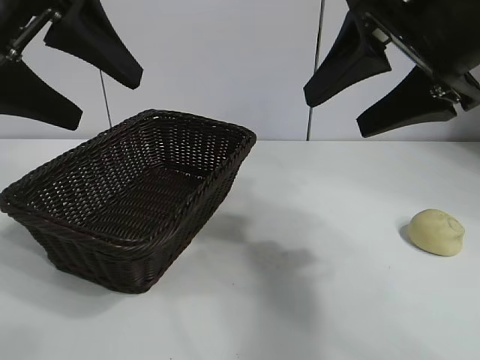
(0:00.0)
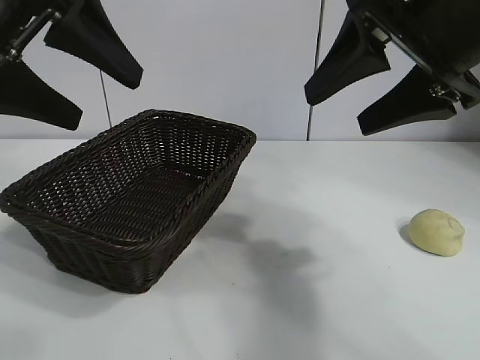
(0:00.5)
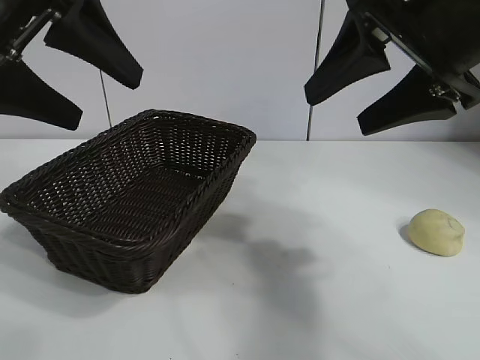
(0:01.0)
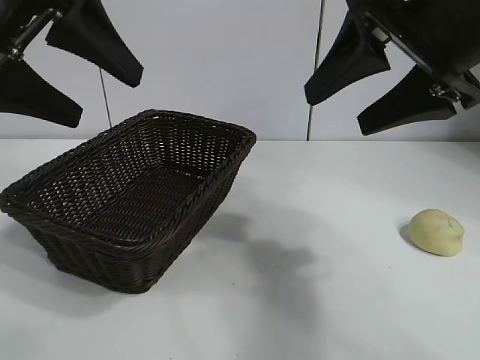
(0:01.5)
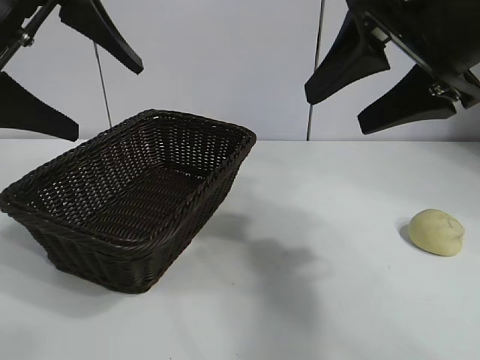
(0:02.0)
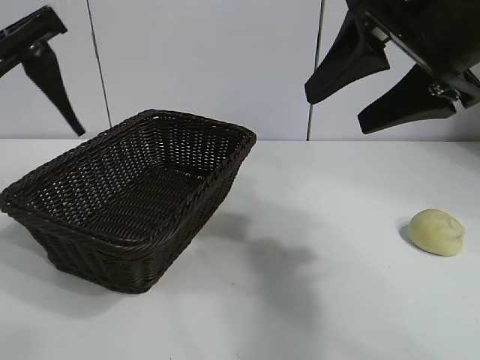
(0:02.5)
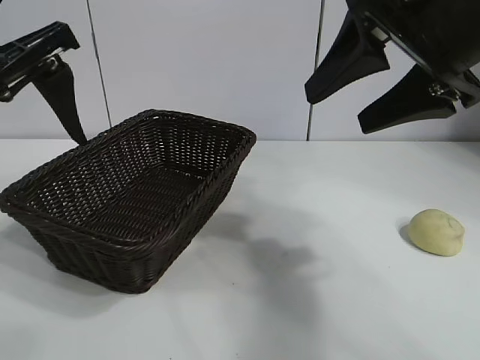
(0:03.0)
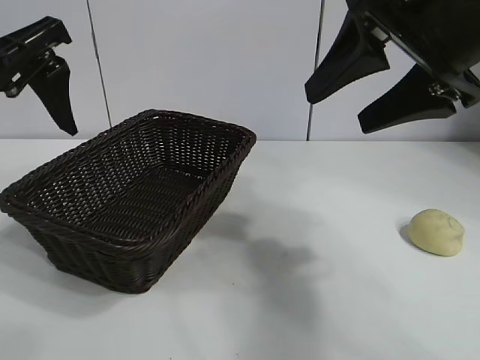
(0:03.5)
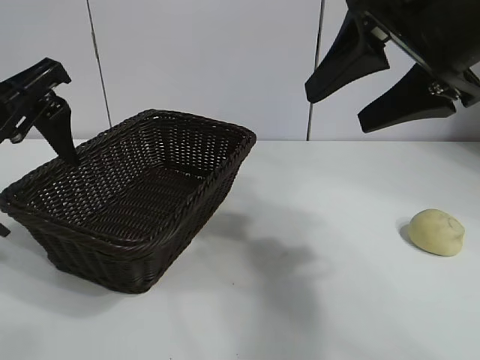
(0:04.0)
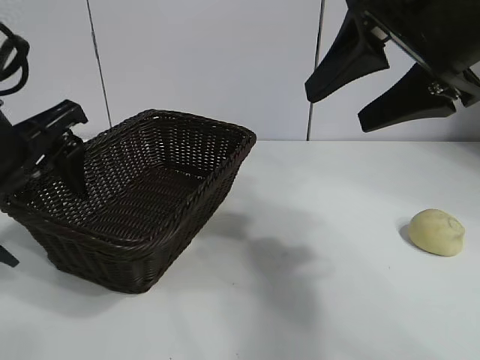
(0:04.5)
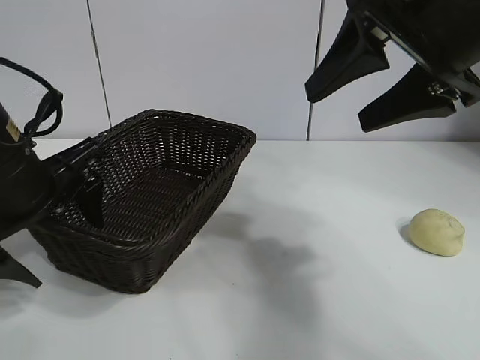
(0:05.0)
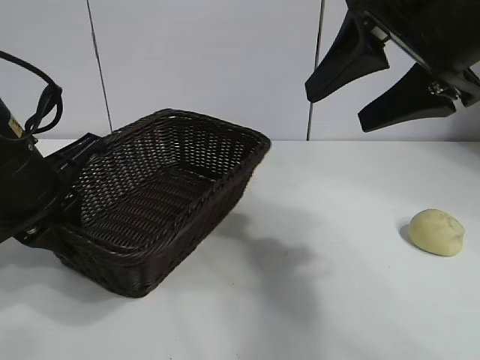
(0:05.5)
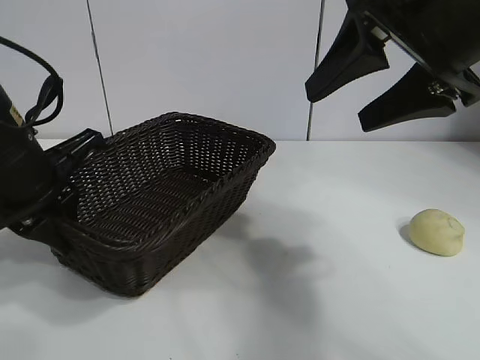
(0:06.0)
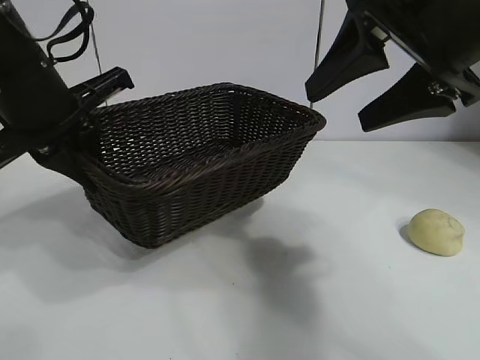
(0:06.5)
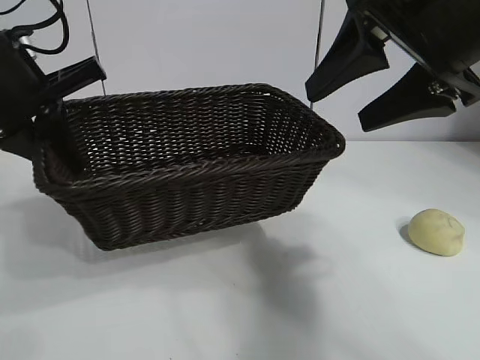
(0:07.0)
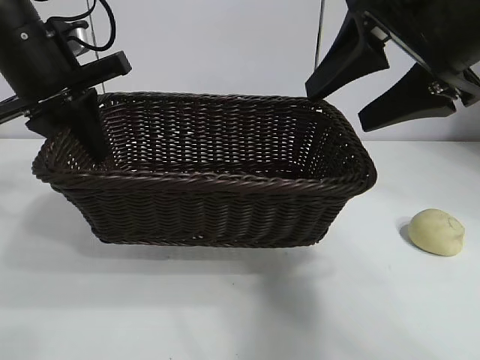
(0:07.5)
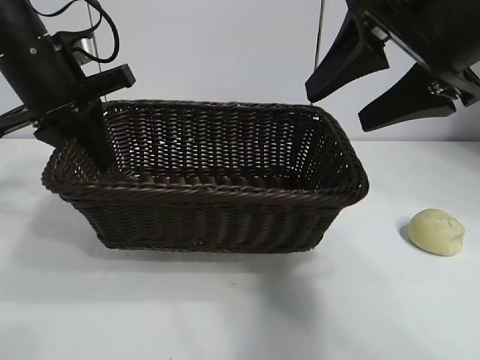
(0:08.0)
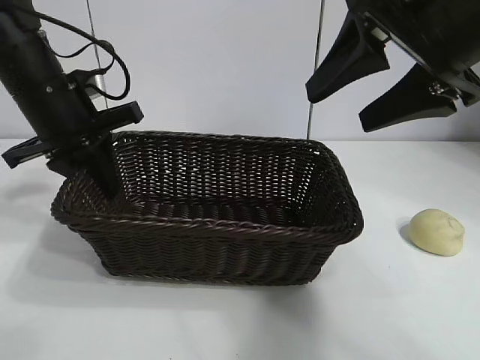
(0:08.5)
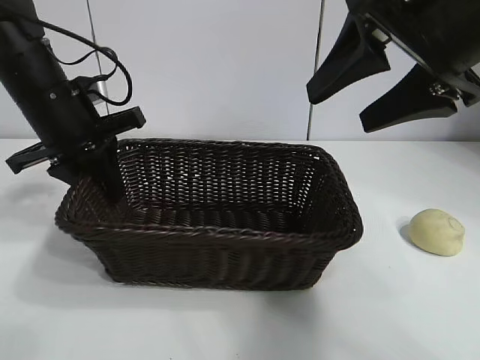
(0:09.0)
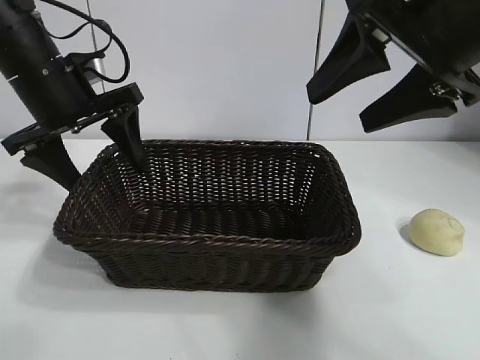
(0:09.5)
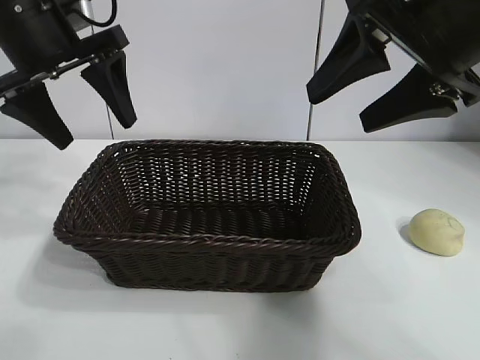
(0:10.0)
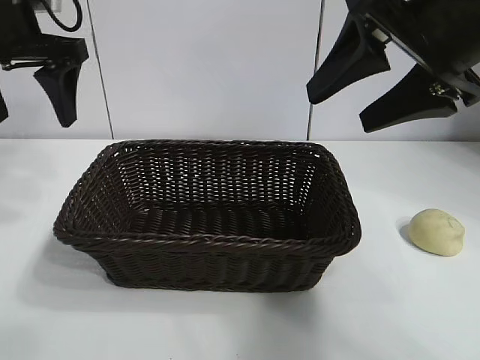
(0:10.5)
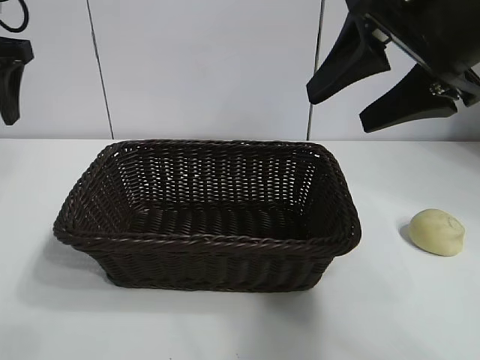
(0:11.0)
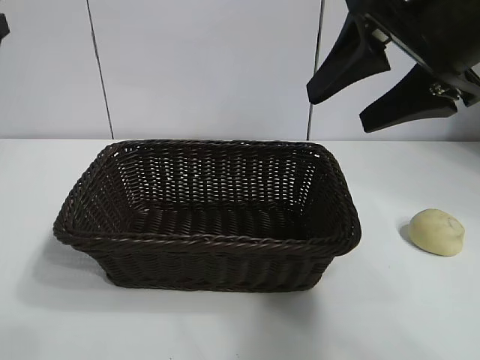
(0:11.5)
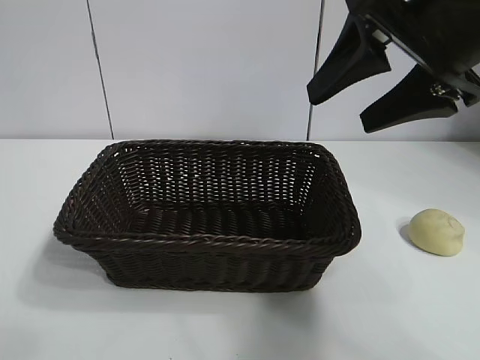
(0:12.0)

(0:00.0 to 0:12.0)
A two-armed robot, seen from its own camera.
Task of the whole recording: pick up the egg yolk pastry and put it into the basket.
Step, 0:01.5 - 0:05.5: Grasp the basket with left gripper.
Step, 0:06.0 - 0:09.0: Place the basket in the center of view with left gripper.

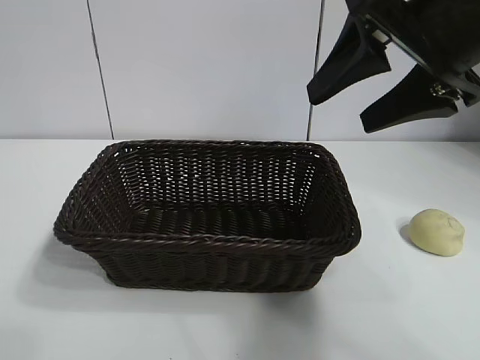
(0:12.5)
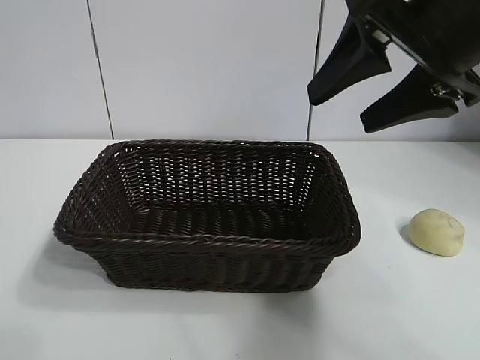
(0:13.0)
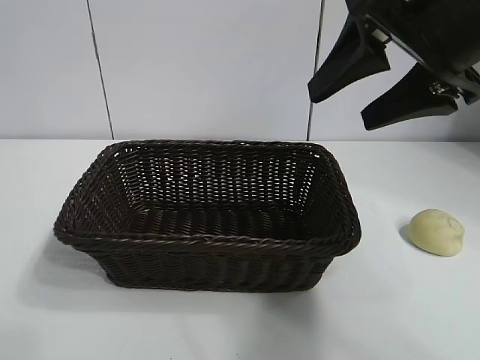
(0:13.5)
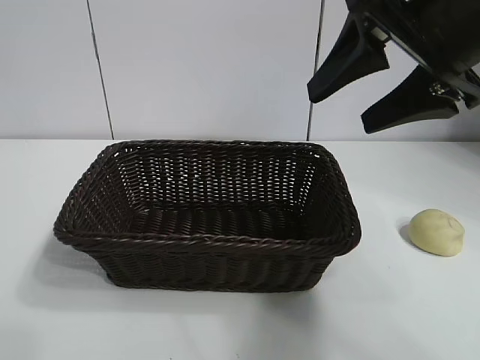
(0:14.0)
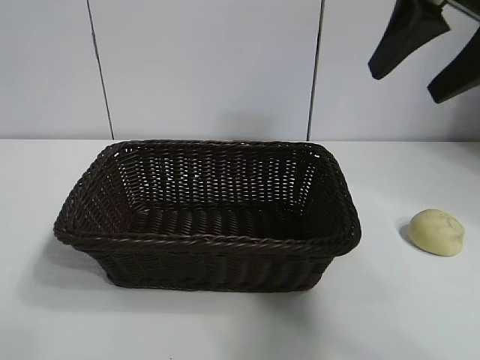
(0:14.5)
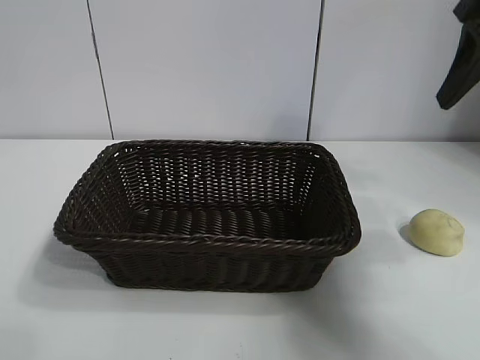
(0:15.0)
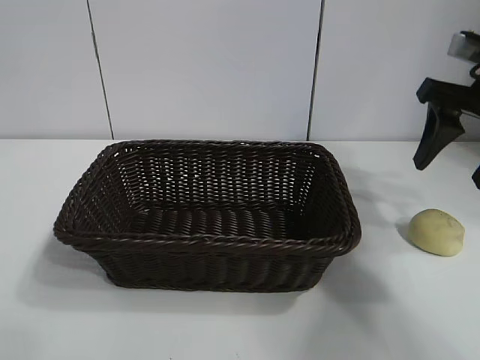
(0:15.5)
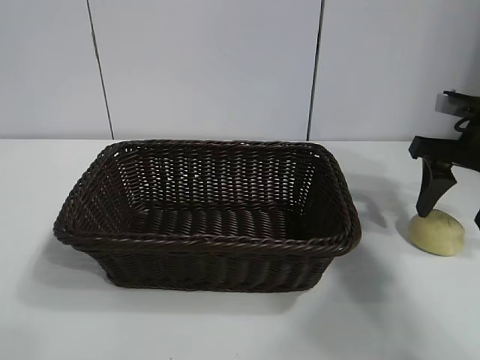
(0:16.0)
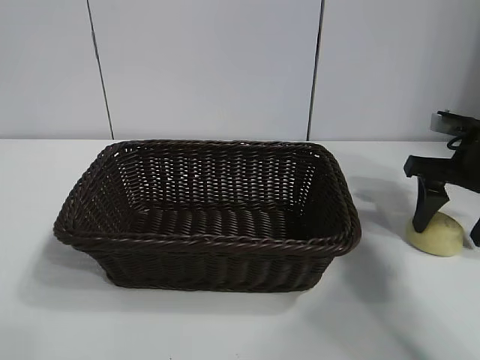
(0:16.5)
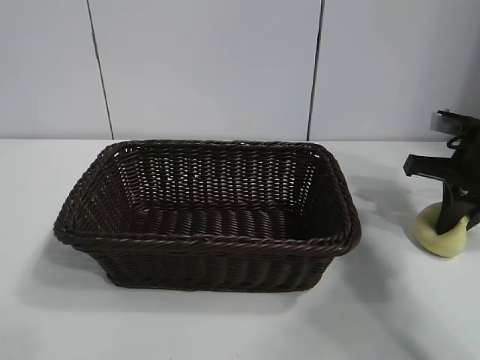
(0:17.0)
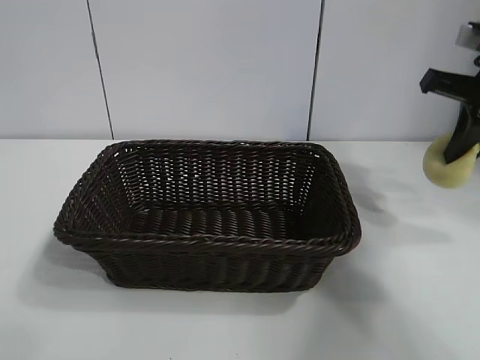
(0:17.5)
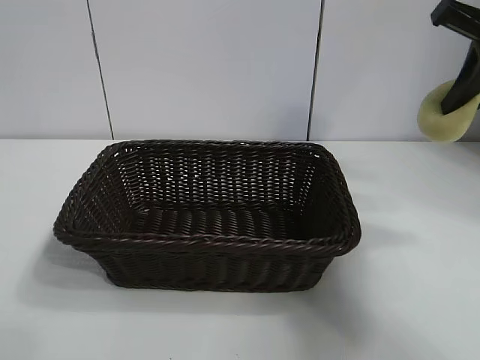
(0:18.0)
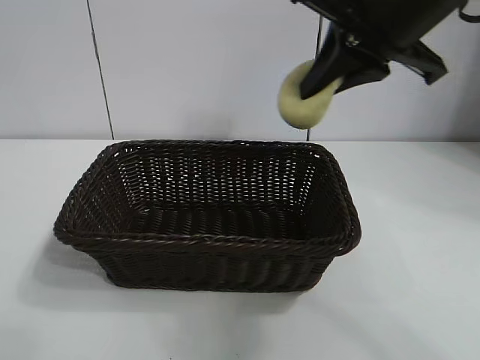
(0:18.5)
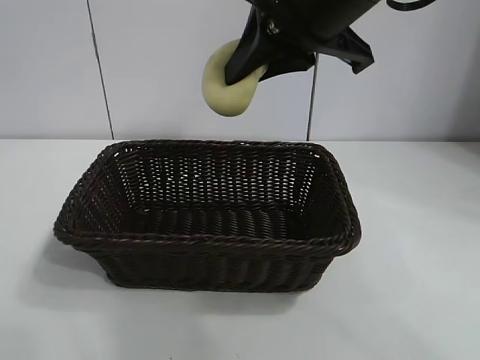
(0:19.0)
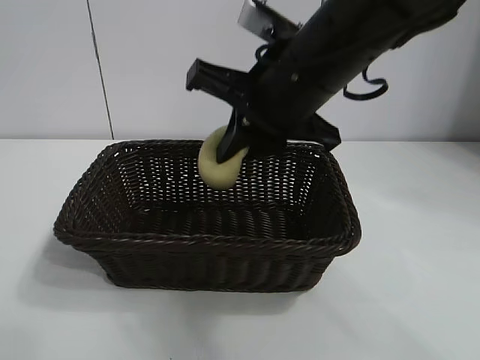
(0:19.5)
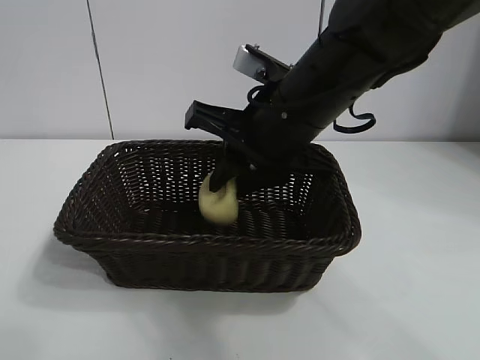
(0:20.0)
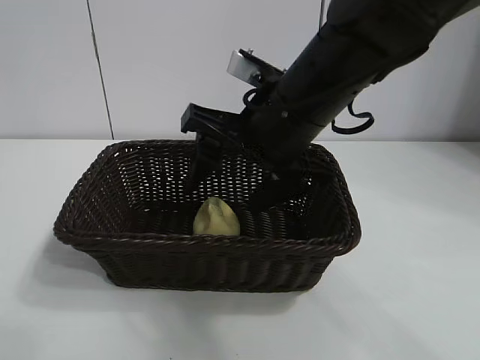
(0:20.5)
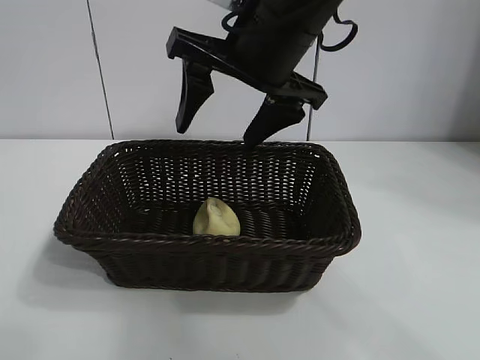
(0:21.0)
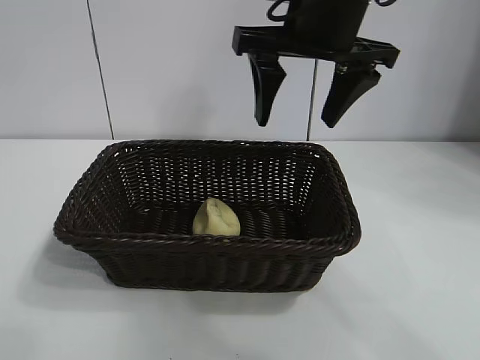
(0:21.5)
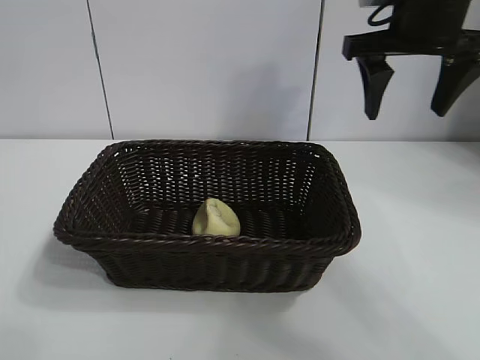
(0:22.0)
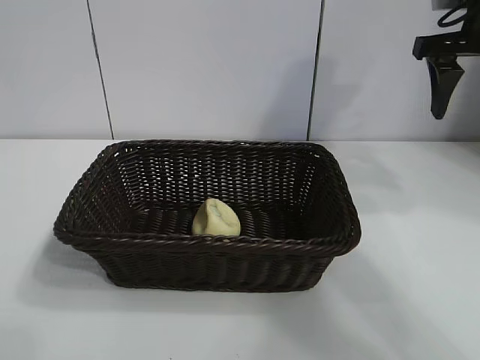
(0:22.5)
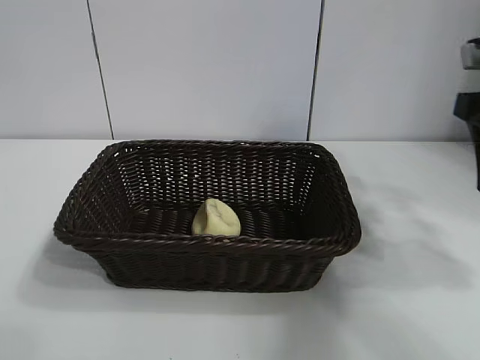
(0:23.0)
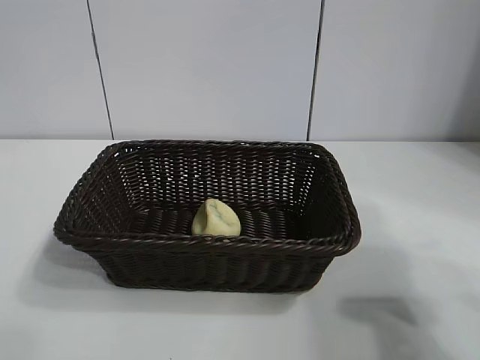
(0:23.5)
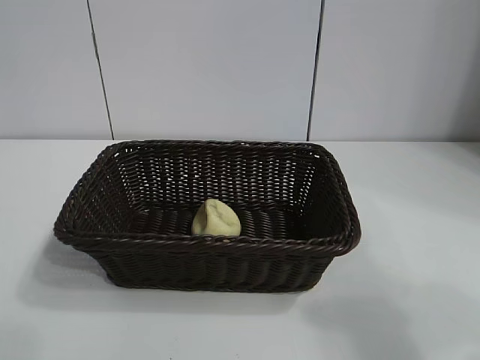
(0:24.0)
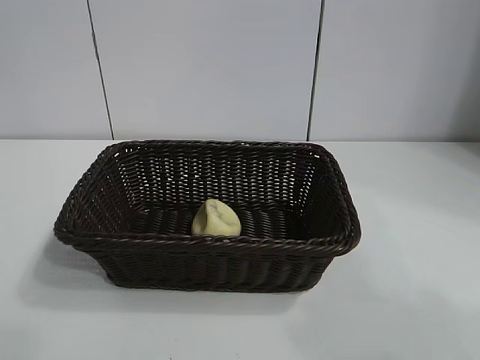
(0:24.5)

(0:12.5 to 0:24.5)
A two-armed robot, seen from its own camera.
Task of the whole recording: pick up the egg yolk pastry and put it into the basket.
Step, 0:12.5 - 0:16.5: Grasp egg yolk pastry with right gripper.
Step, 0:17.5 - 0:20.5: Place the egg yolk pastry in the basket with right gripper.

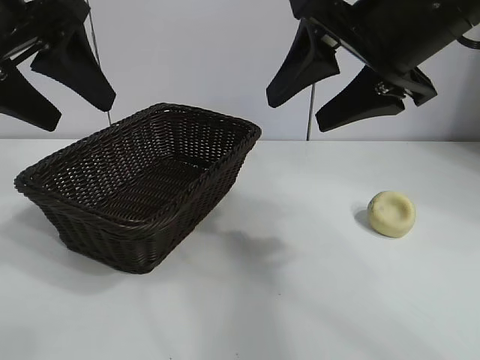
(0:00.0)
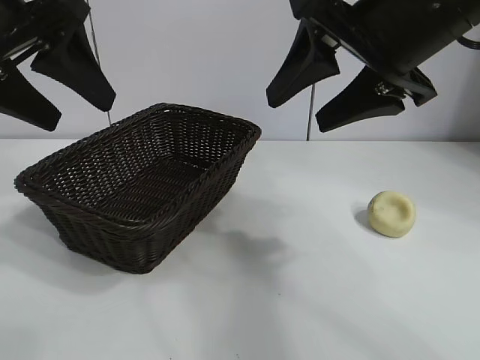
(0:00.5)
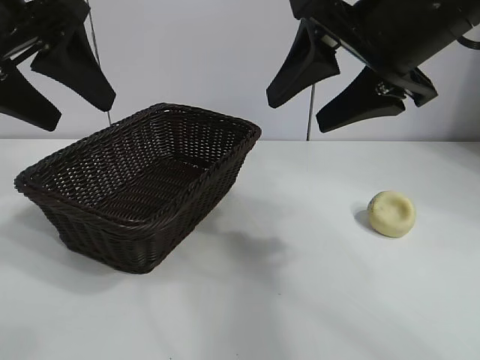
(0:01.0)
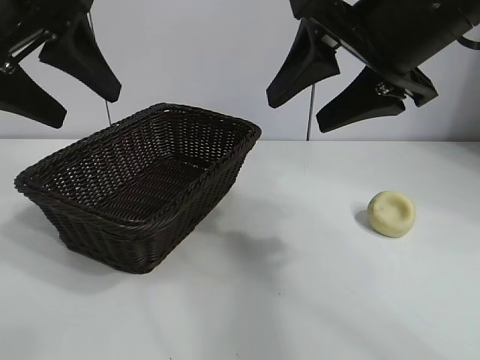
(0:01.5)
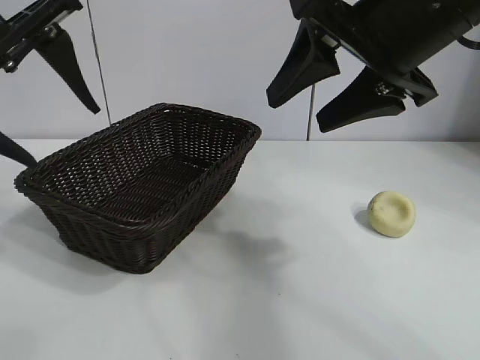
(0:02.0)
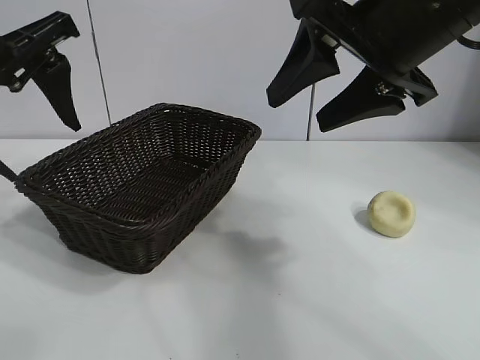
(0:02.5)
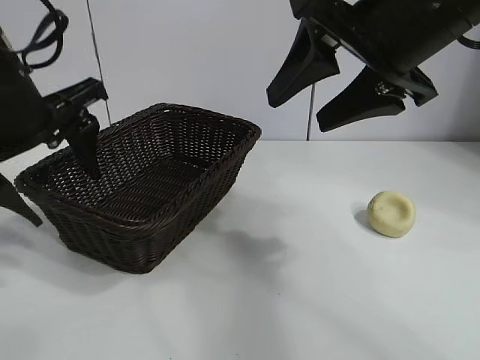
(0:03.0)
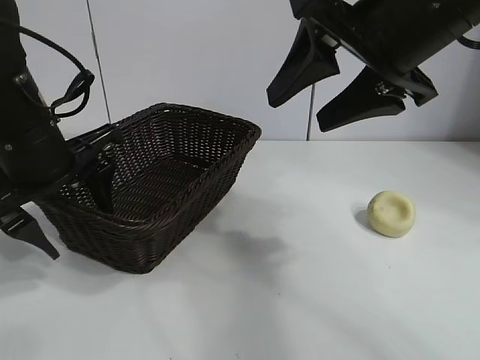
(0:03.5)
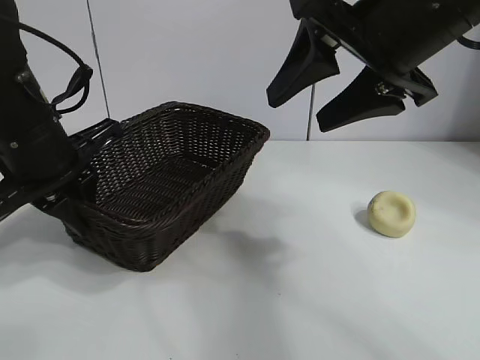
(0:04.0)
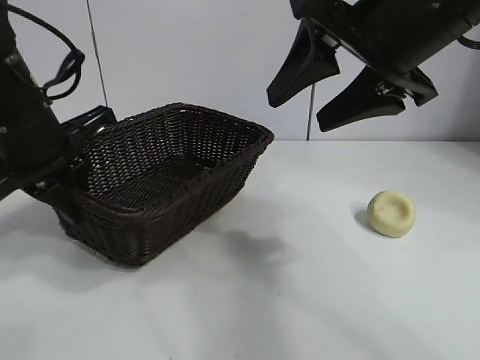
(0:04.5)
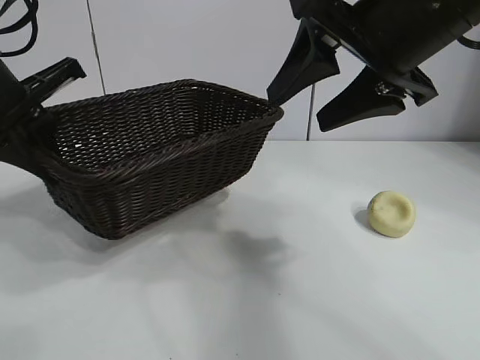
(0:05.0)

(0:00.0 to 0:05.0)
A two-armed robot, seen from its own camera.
Task of the whole recording: pick up the egg yolk pastry and put it into the basket.
Step, 0:01.5 - 0:03.5: Grasp the basket with left gripper.
